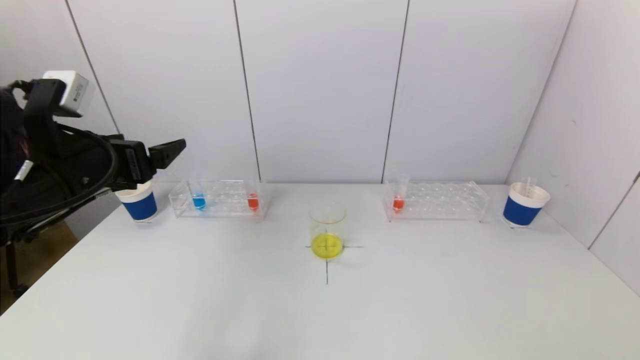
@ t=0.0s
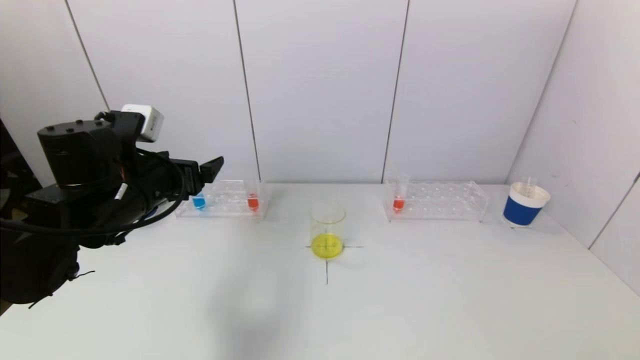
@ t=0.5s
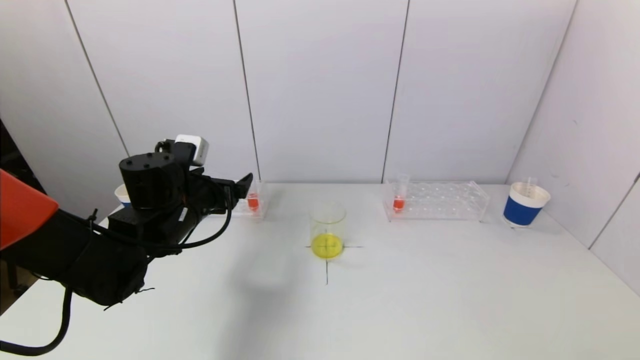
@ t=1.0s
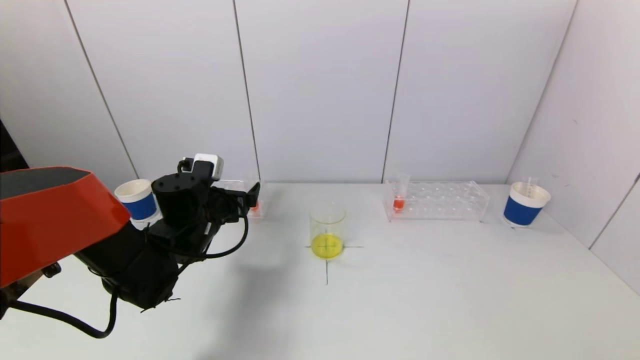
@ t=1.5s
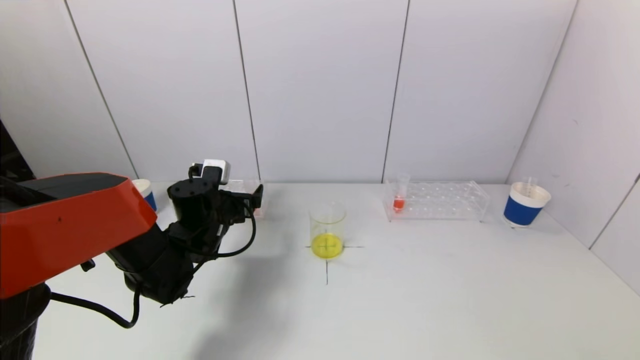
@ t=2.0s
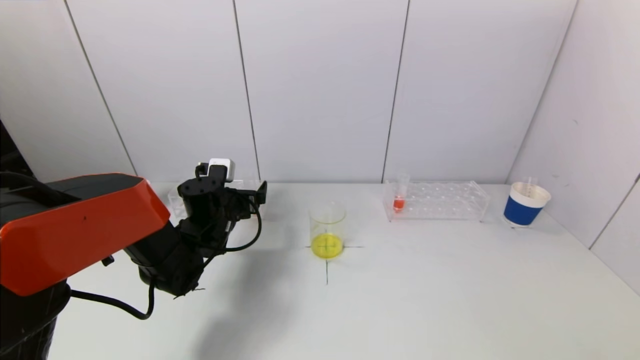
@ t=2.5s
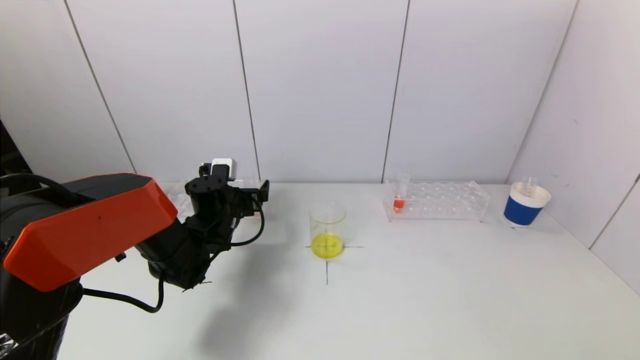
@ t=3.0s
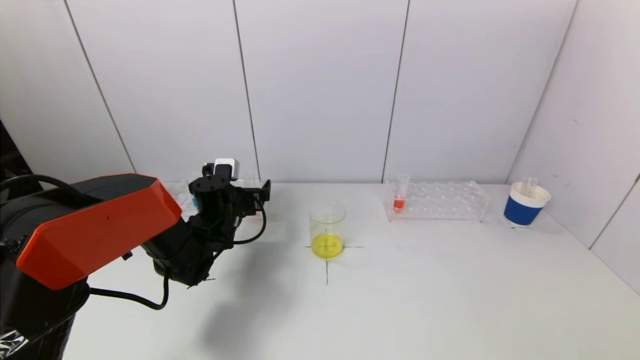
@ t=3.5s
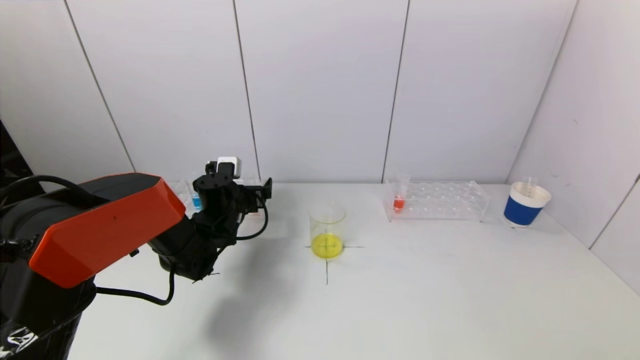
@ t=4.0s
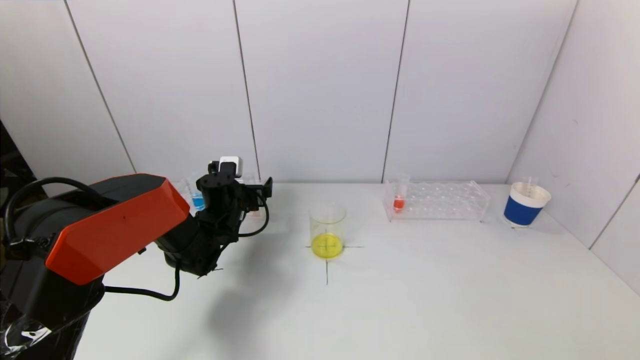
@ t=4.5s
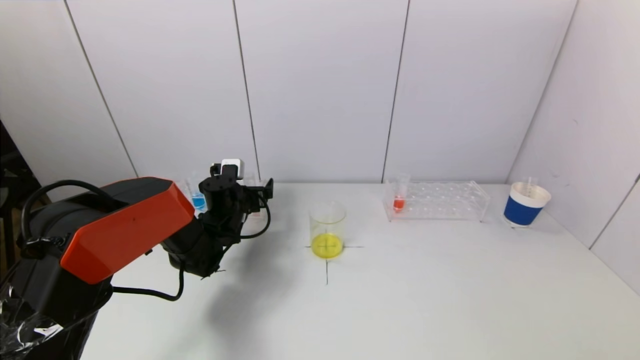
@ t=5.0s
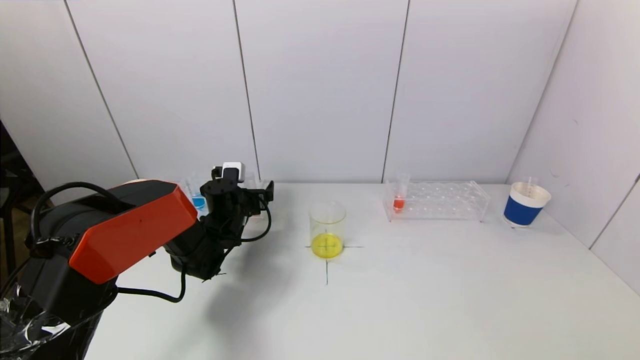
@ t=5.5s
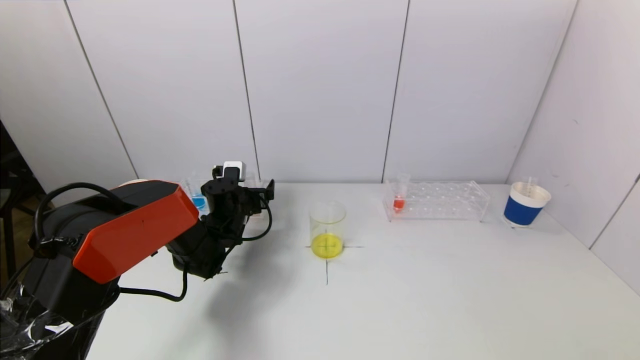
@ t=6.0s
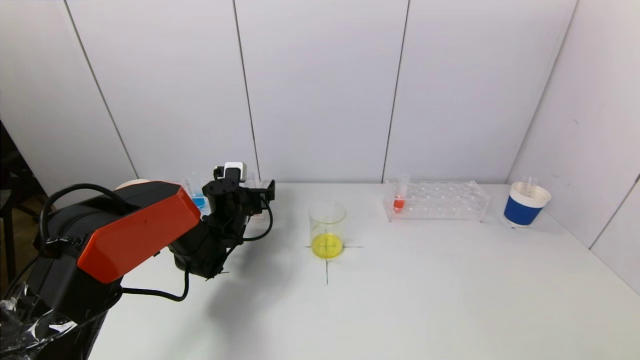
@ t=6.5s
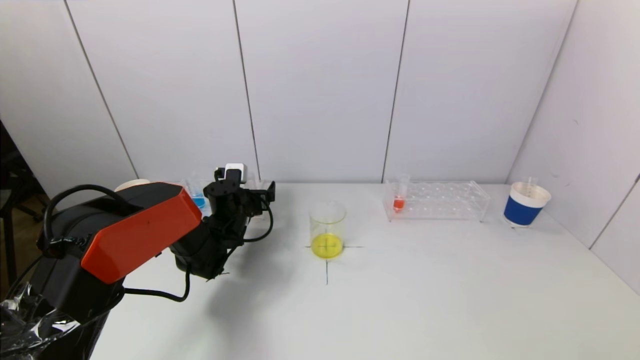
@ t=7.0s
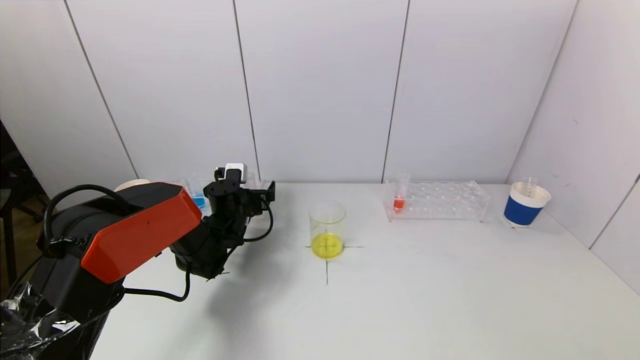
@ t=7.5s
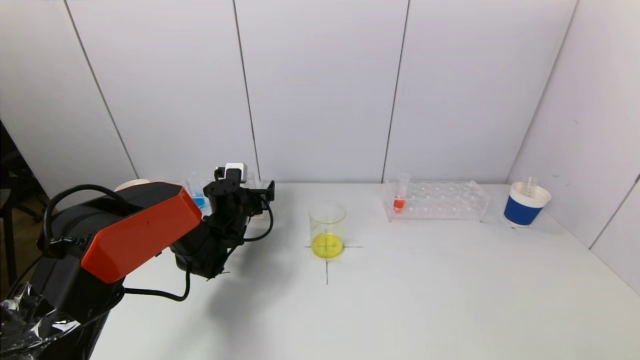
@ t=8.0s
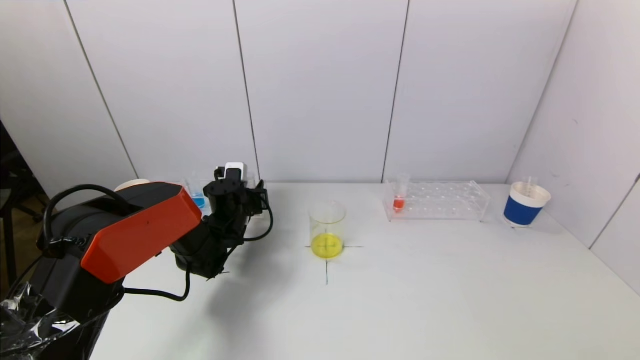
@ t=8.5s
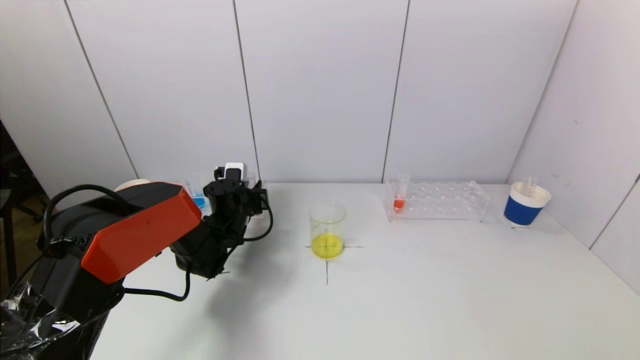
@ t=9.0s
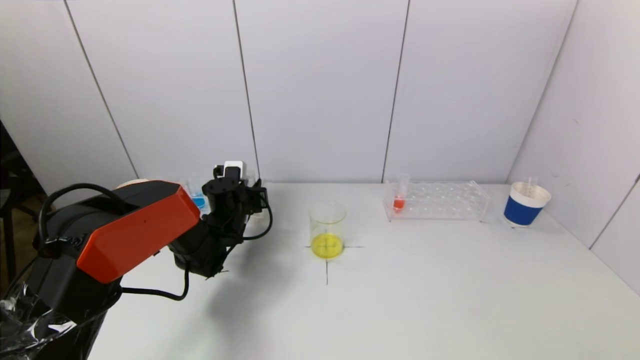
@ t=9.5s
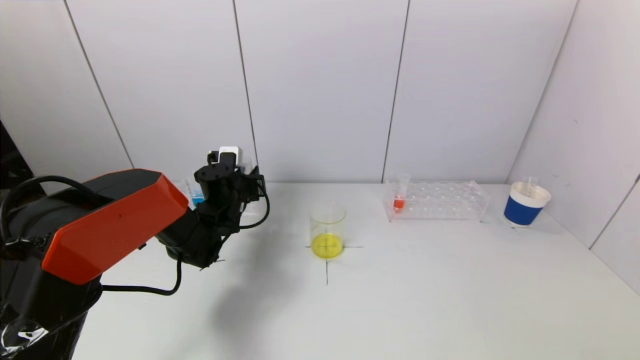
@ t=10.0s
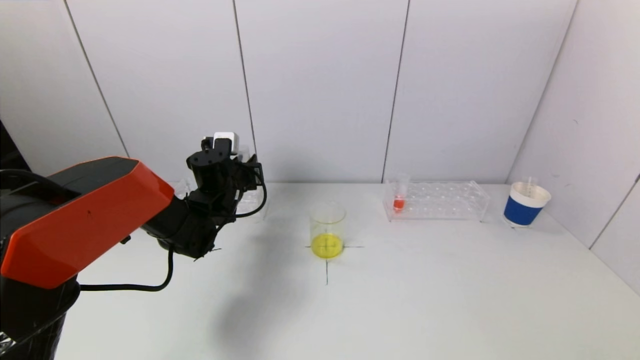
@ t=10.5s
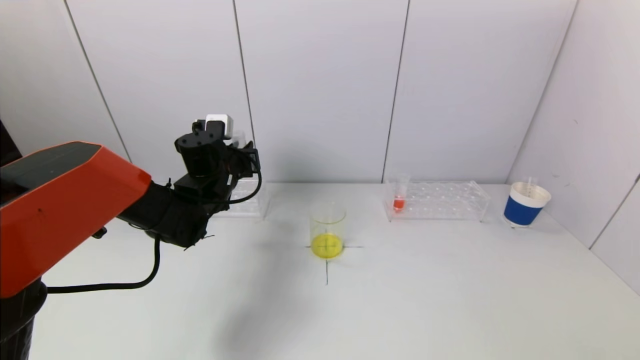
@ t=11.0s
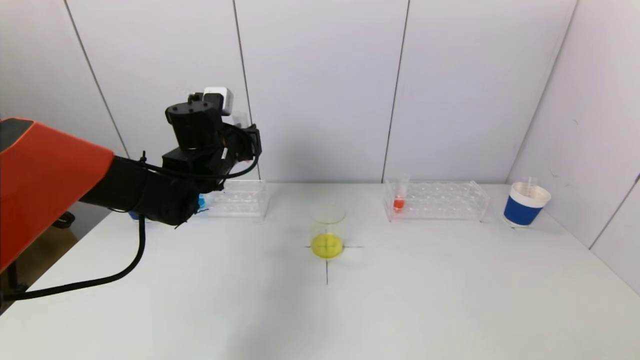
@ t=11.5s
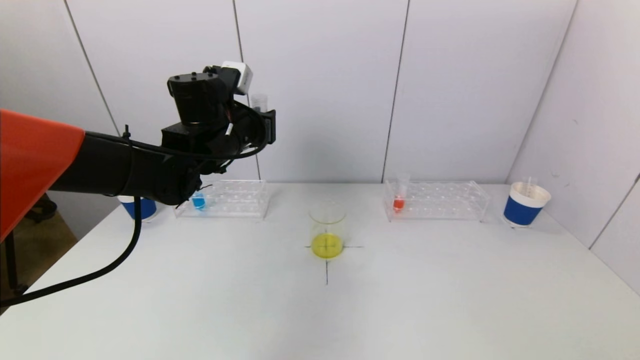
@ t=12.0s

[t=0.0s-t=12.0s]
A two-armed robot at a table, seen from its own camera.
Task of the whole recording: pick up a test tube with pigment on left test tube rack and a test tube with pigment on right test tube rack by grippers and pour them into the beaker.
Step, t=0.0s to t=9.0s: Grasp the red reagent with the left gripper.
t=0.0s to t=2.0s: The left gripper moves downward, forward and to the right, about 20 cm.
t=2.0s to t=4.0s: The left gripper ends up roughly 5 cm from where it was.
t=4.0s to t=6.0s: There are only small adjustments of the grippers.
t=6.0s to t=8.0s: The two grippers keep their place.
t=8.0s to t=10.0s: The left gripper closes its fingers.
t=10.0s to t=12.0s: The left gripper moves upward, approximately 15 cm.

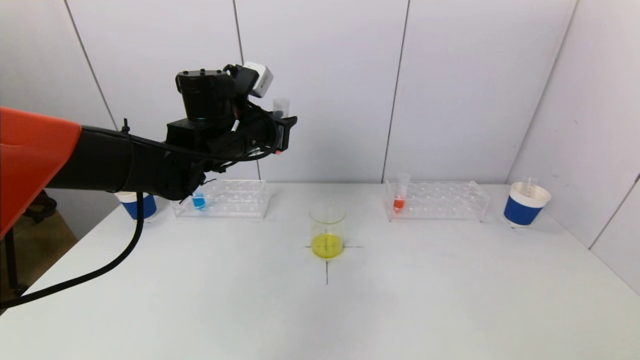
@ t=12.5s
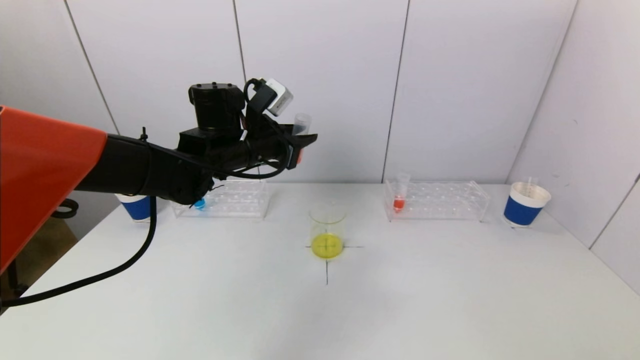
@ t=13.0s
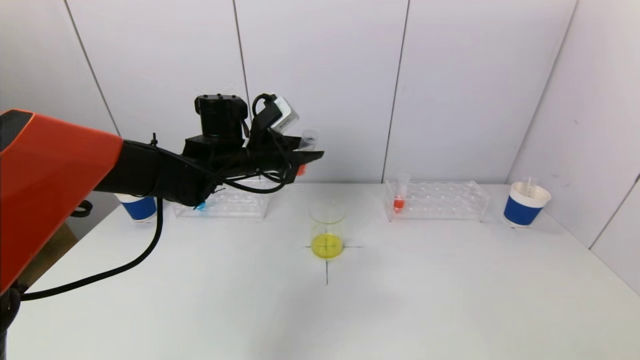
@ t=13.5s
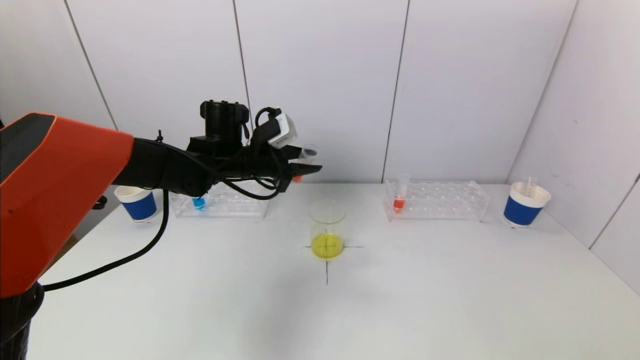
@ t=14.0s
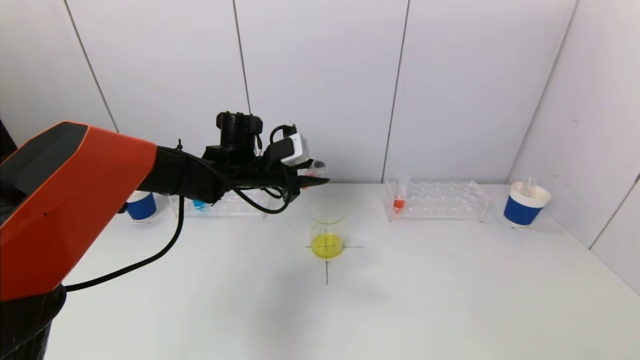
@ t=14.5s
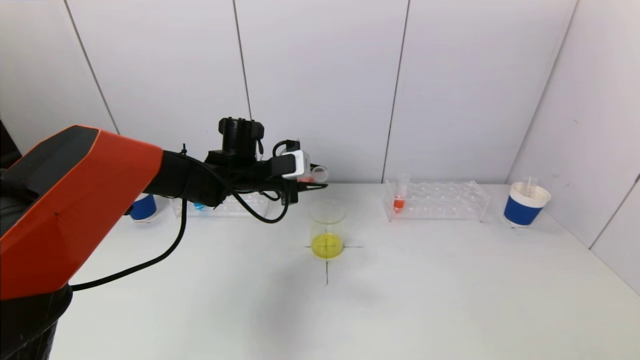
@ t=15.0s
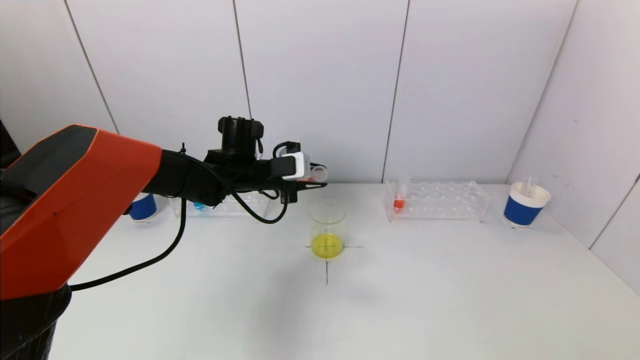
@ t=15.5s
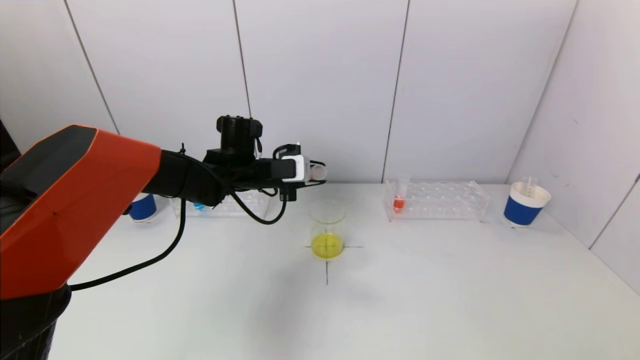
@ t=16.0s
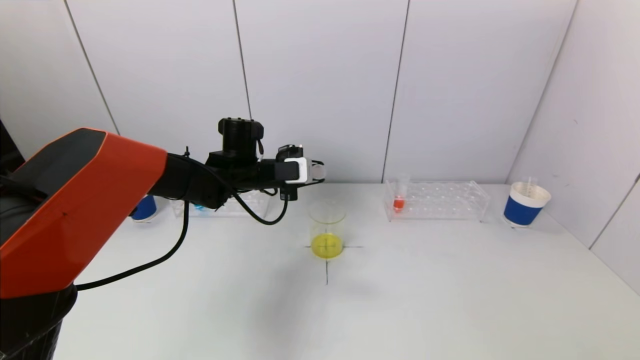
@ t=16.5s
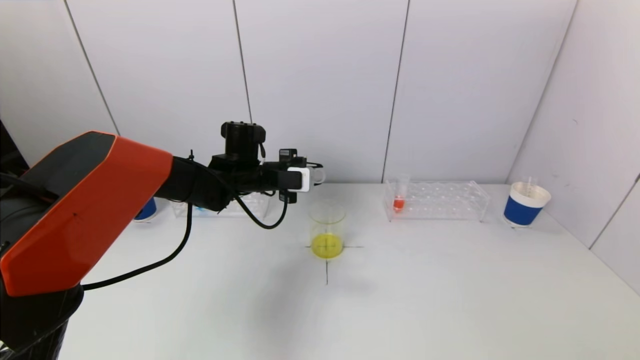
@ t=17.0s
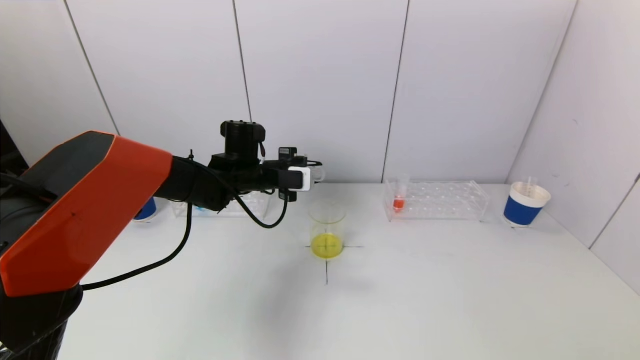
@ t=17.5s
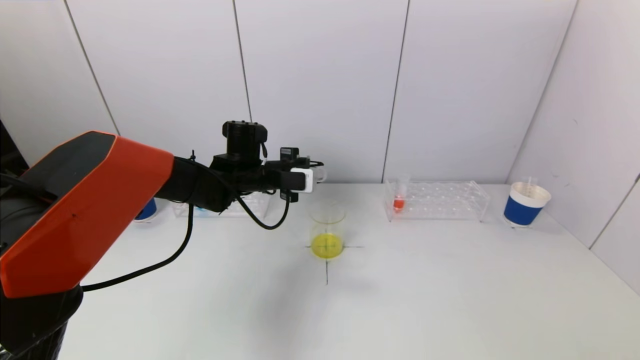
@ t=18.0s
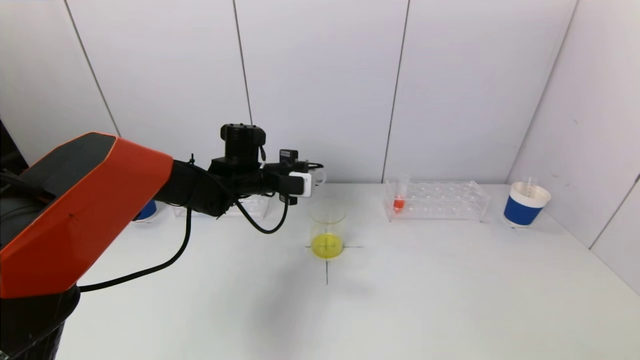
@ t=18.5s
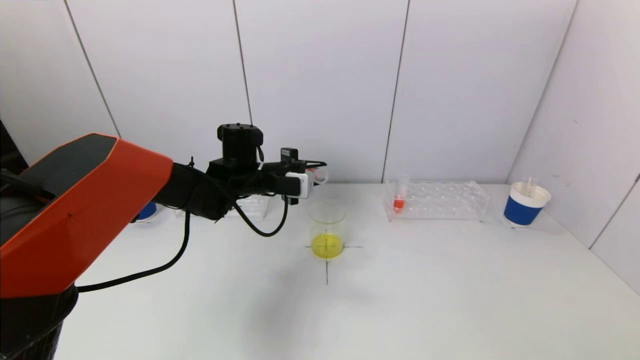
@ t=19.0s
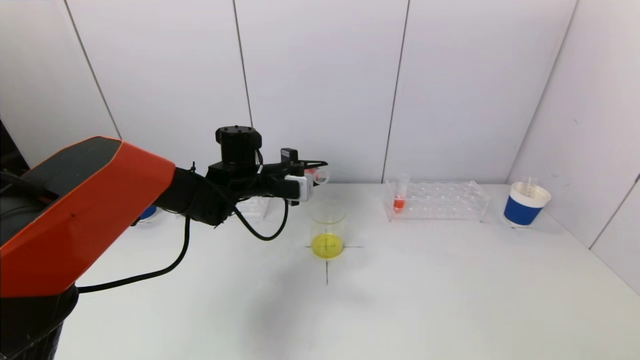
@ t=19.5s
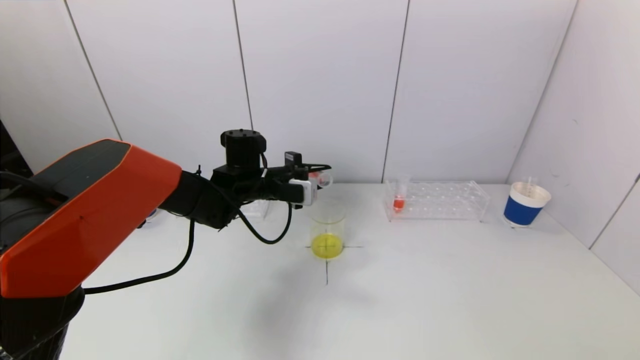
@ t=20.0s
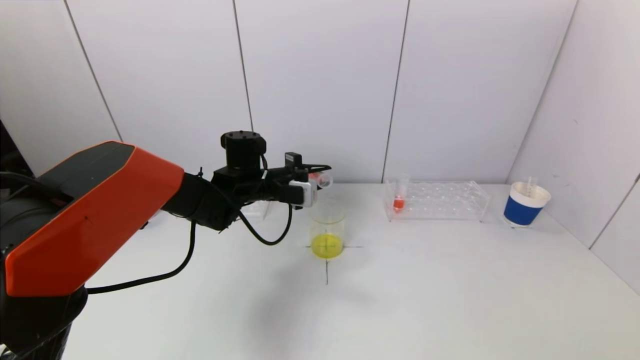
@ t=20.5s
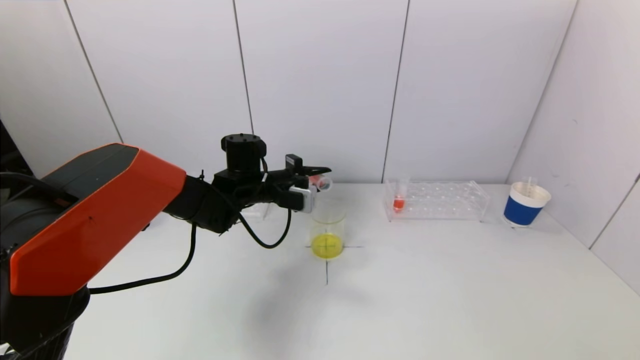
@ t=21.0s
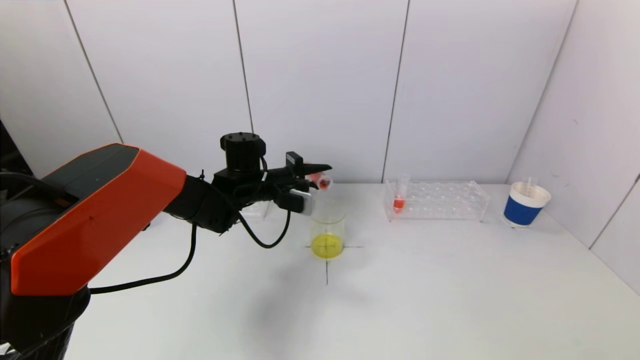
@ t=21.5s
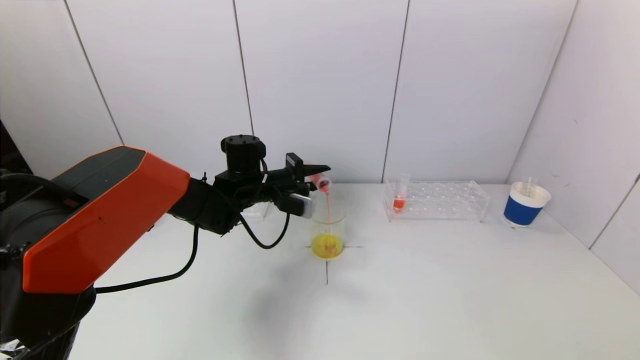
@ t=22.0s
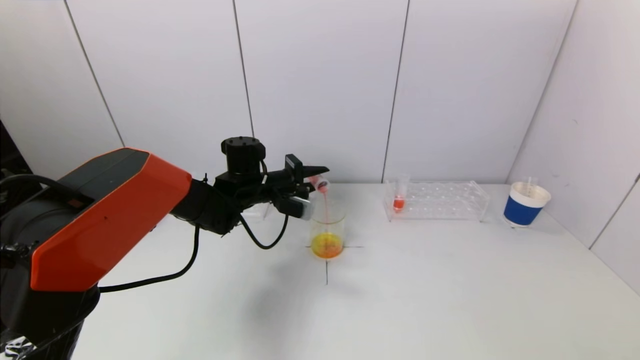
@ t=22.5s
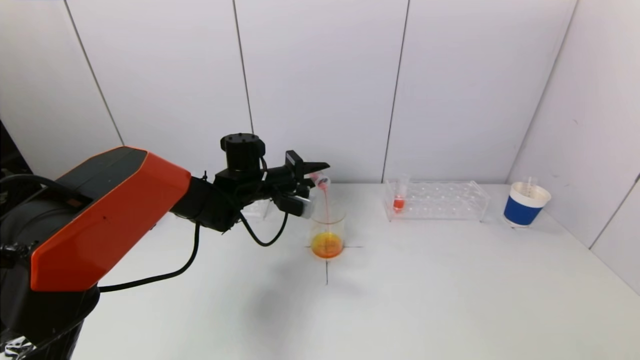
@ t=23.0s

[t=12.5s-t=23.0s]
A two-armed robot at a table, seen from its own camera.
Task of the whole recording: pick up a test tube with pigment on left test tube rack and a test tube with pigment on right test tube rack by grippers and pour them into the beaker.
t=12.5s to t=14.5s: The left gripper travels downward by about 10 cm.
t=16.5s to t=21.0s: The grippers stay close to where they were, moving slightly.
t=21.0s to t=23.0s: The grippers stay close to where they were, moving slightly.
